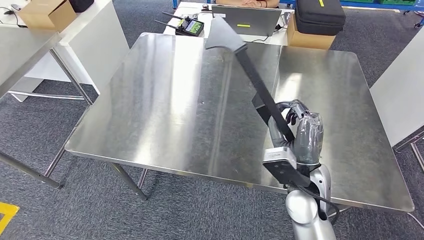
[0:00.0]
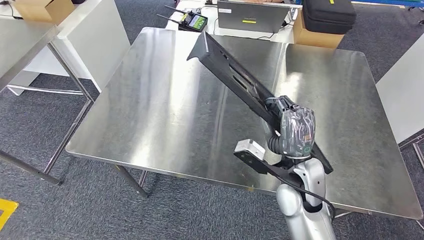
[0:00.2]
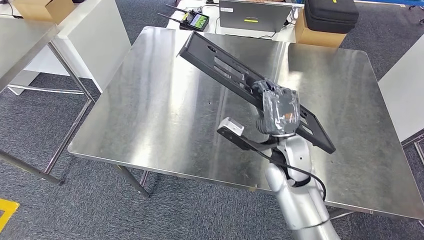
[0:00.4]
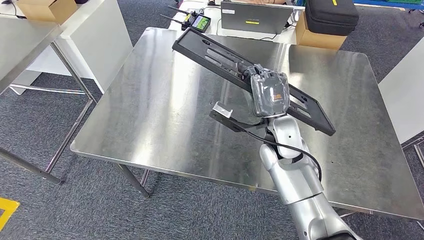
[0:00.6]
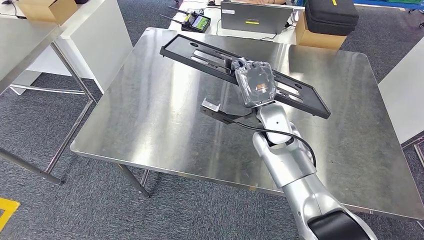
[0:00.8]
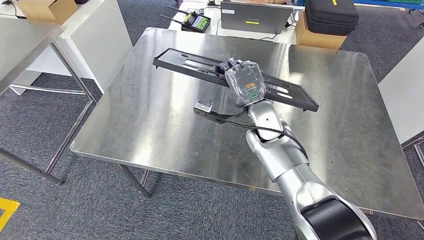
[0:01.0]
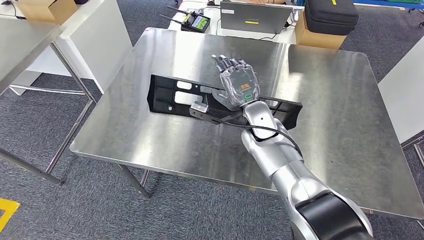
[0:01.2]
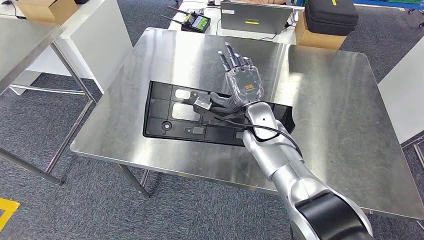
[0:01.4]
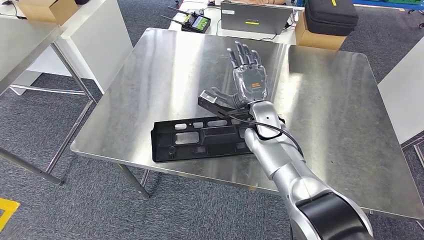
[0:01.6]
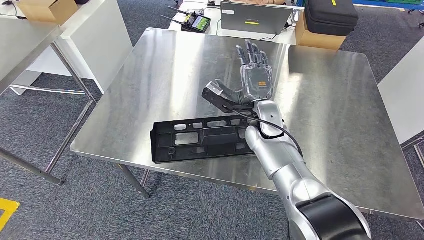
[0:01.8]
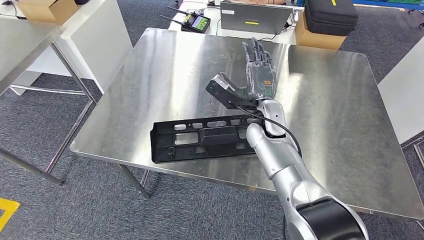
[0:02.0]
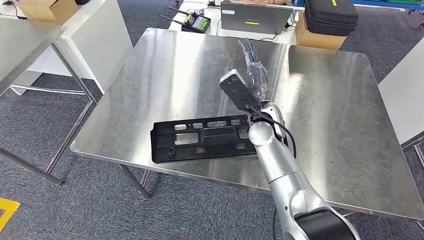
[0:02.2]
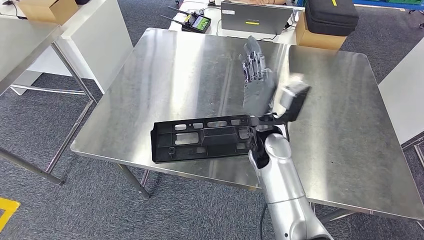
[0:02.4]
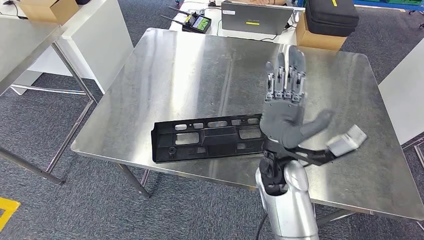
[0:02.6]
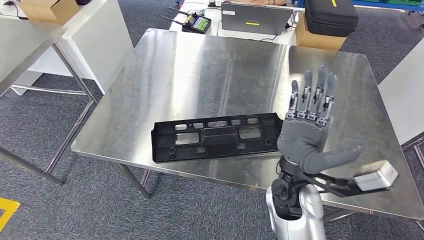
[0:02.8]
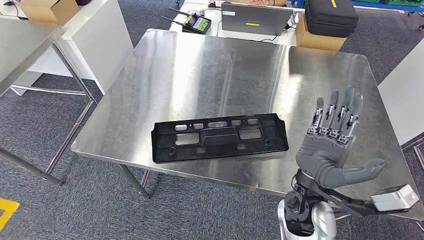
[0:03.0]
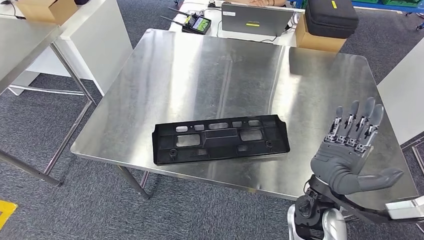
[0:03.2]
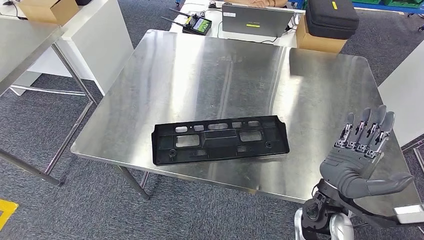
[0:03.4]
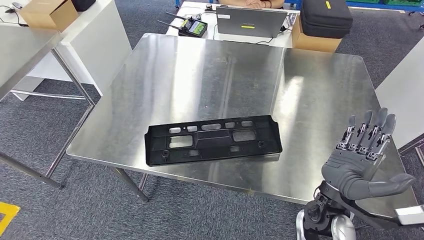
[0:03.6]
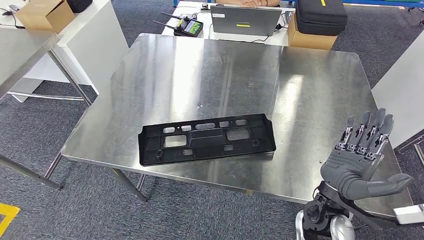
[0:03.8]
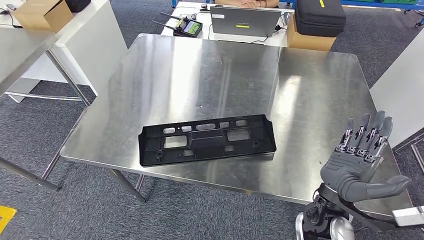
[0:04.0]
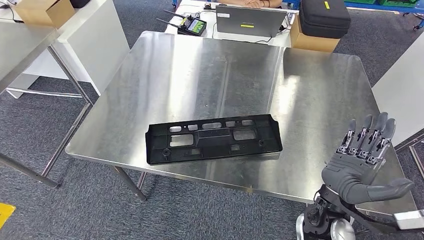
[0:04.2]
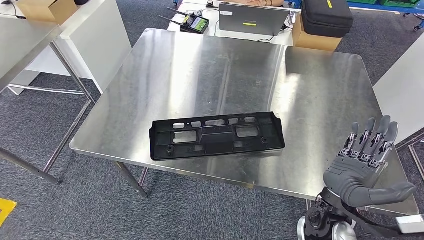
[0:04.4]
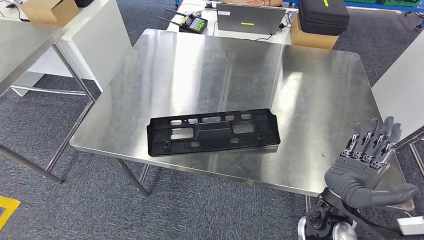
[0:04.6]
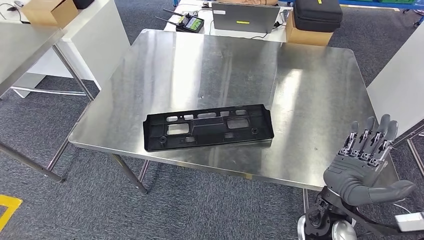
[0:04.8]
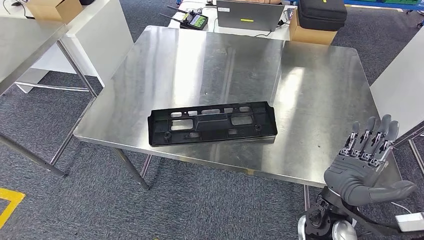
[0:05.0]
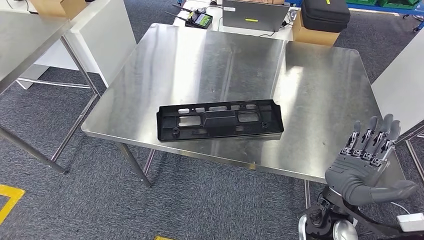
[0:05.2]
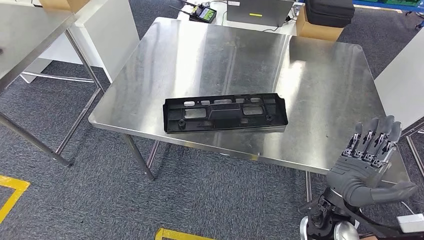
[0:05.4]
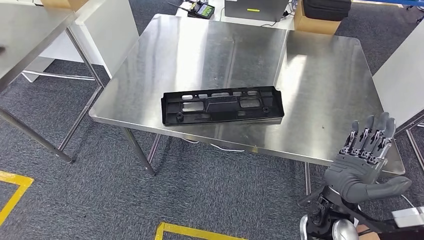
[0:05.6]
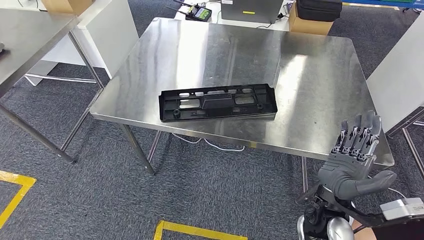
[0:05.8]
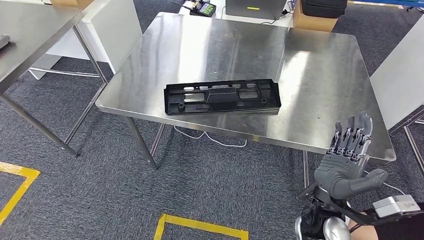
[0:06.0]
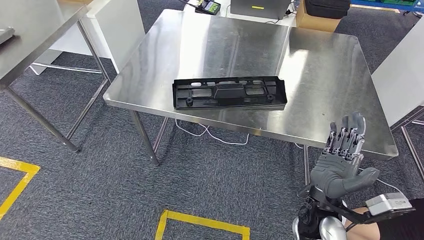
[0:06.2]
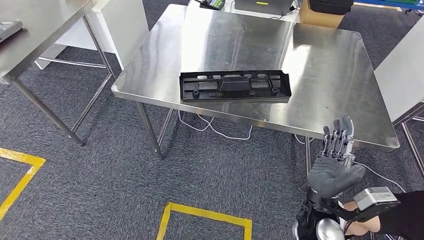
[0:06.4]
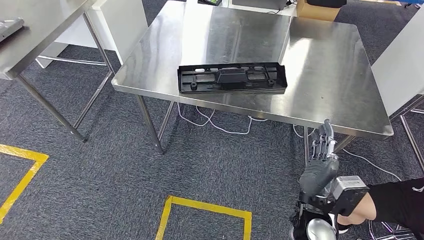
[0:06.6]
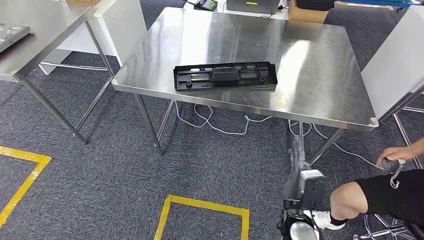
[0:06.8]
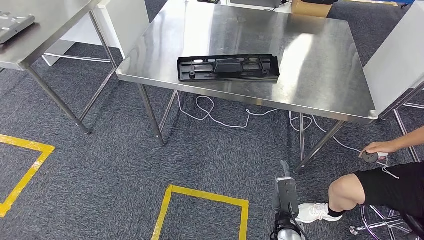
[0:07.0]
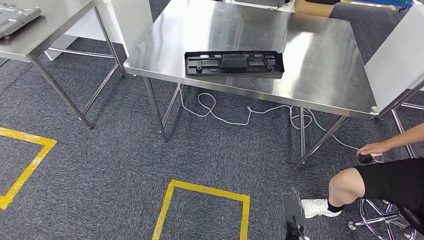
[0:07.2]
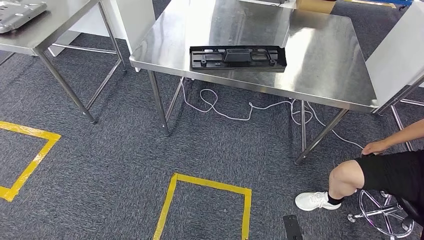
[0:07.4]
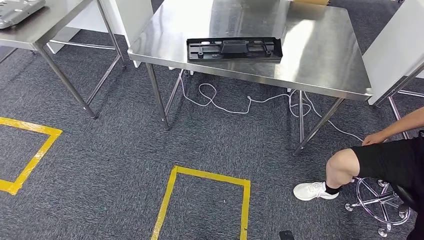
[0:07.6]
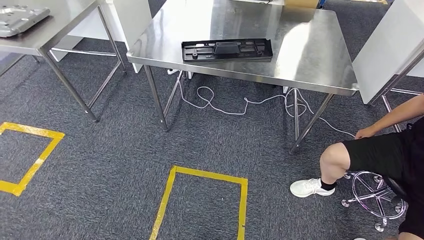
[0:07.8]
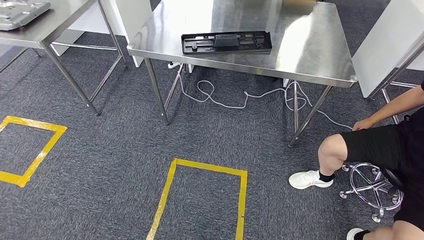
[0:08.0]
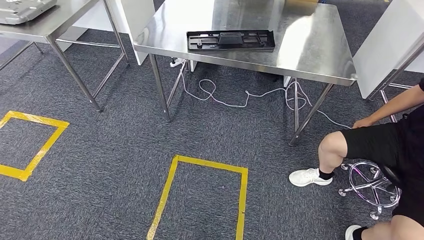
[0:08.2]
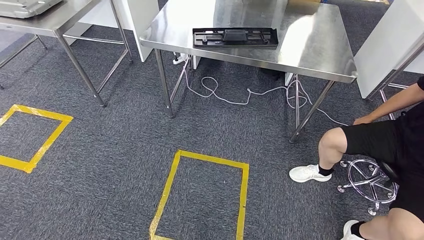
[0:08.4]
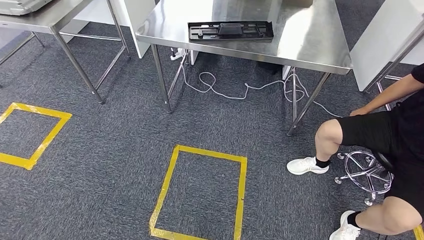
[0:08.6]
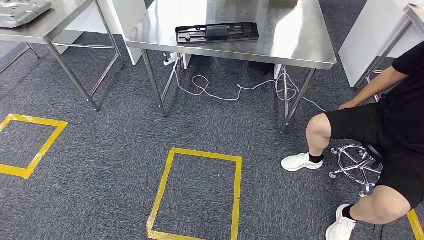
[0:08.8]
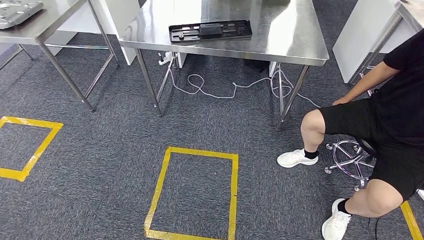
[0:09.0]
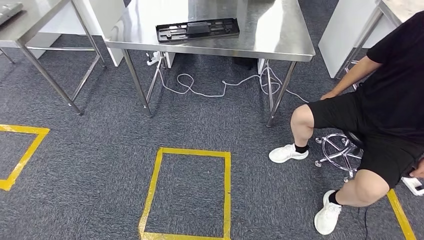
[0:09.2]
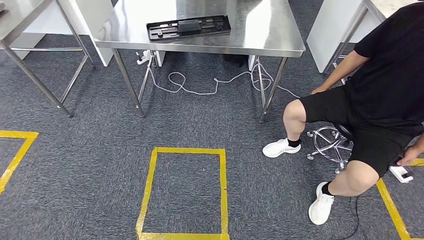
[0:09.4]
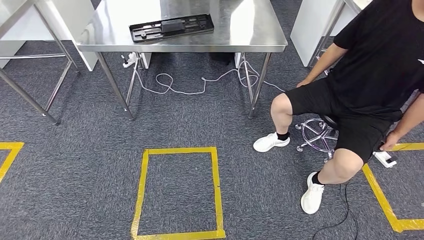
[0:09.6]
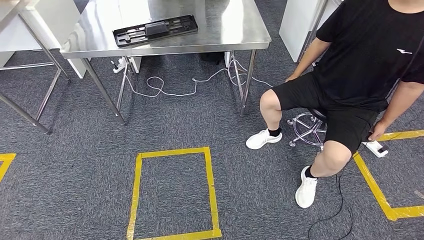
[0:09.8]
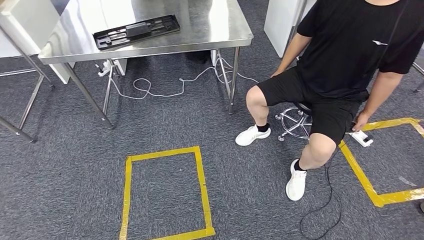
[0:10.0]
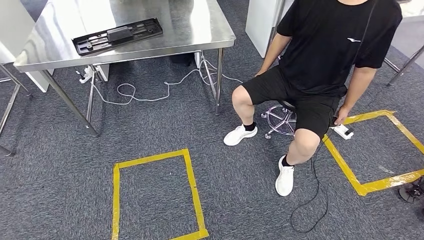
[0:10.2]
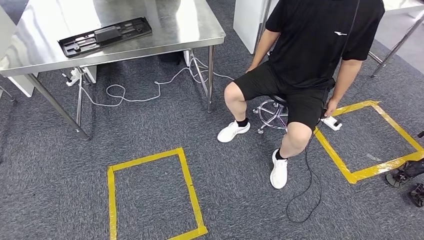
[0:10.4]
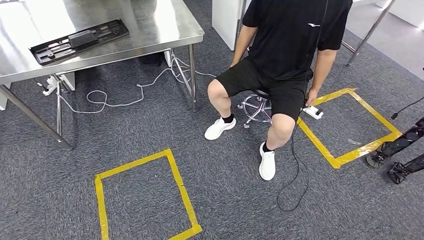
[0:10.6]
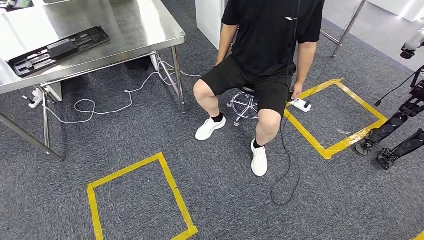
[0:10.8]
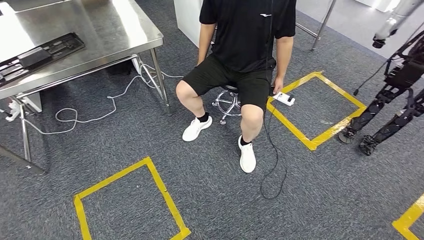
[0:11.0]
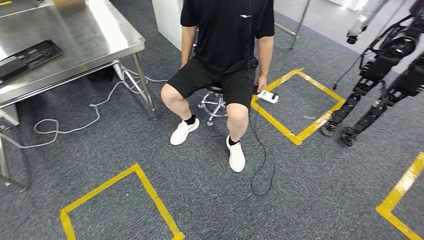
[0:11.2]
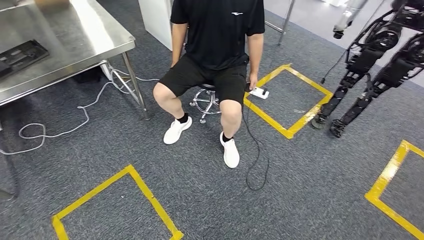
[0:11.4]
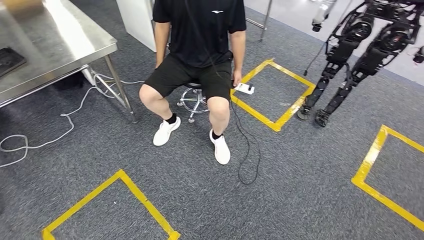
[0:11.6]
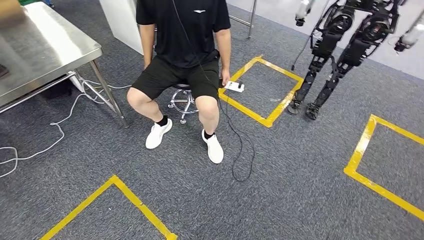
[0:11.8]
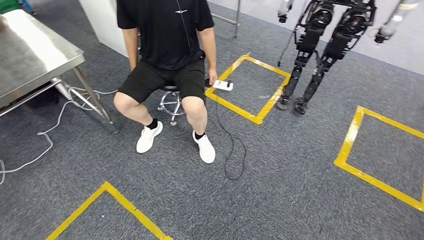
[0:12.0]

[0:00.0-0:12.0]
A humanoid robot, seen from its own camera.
Step, 0:00.0 to 0:06.6: Insert the large material into the corresponding hole on the workbench.
0:01.6 to 0:03.0: The right hand heads backward, covering about 20 cm.
0:03.0 to 0:04.4: The right hand changes place by some 5 cm.

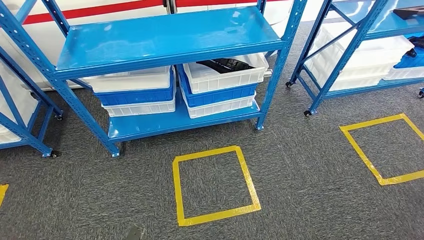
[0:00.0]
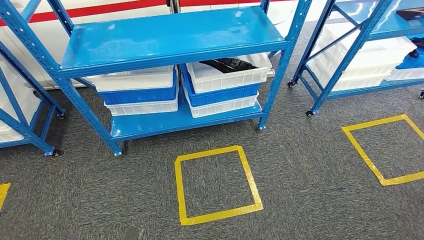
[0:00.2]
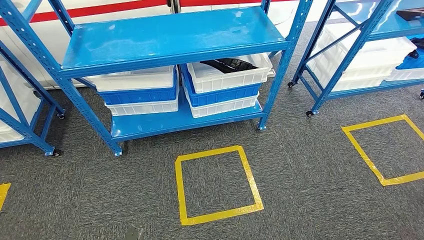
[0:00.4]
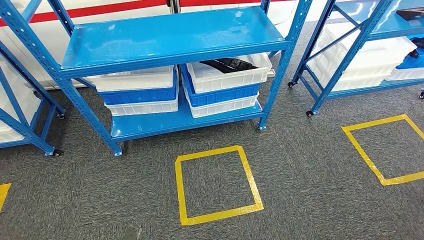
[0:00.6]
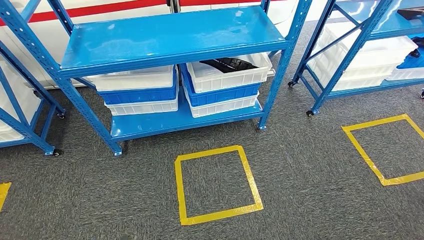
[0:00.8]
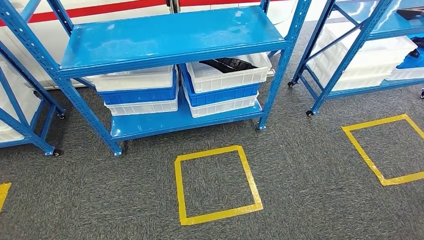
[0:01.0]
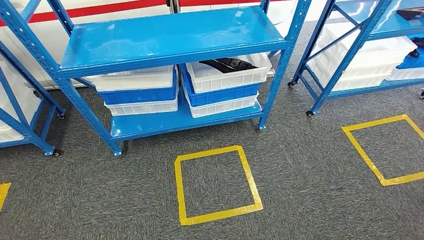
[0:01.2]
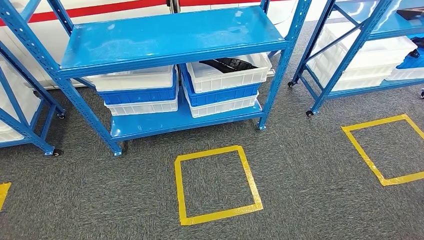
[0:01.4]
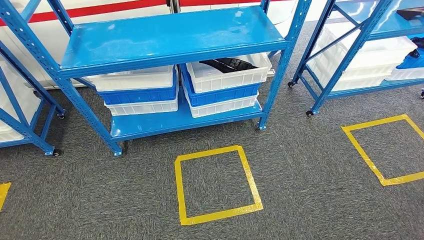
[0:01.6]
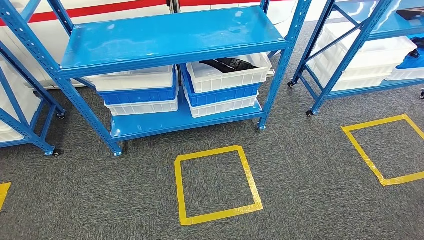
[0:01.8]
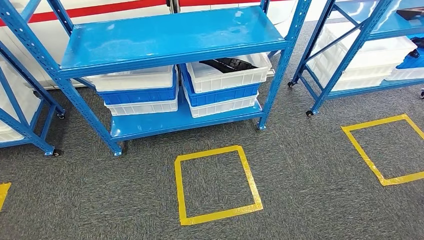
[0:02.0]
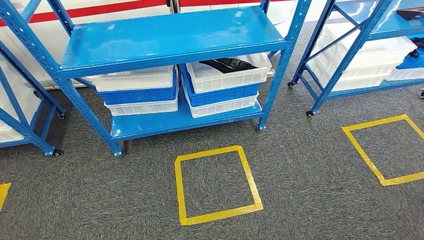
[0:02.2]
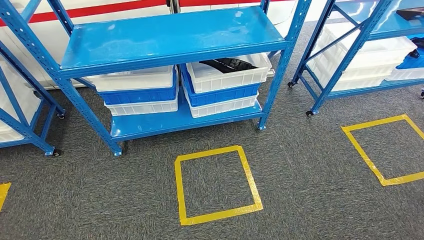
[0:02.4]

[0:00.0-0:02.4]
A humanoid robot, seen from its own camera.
Step, 0:00.0 to 0:02.4: Move to the initial position of the shelf.
0:00.0 to 0:01.2: The left hand heads backward, covering about 5 cm.
